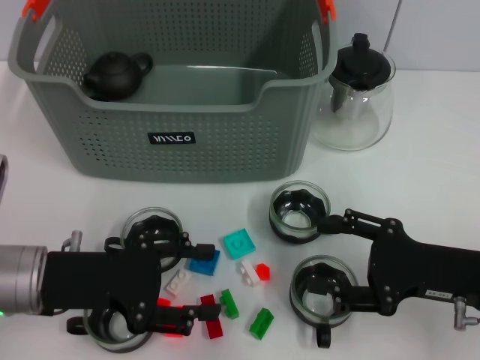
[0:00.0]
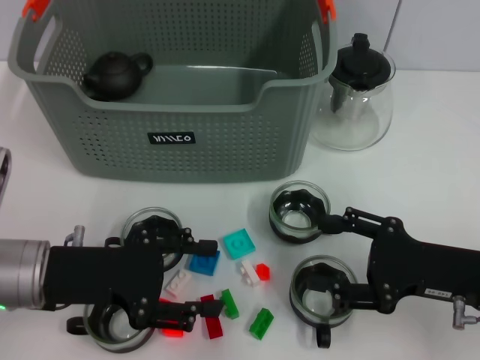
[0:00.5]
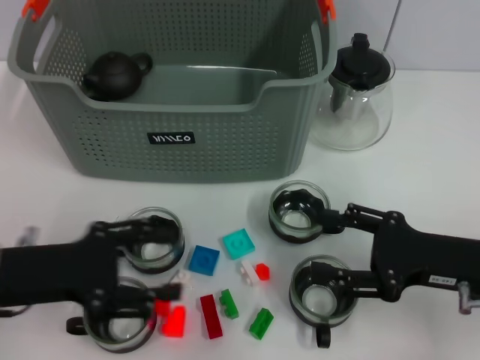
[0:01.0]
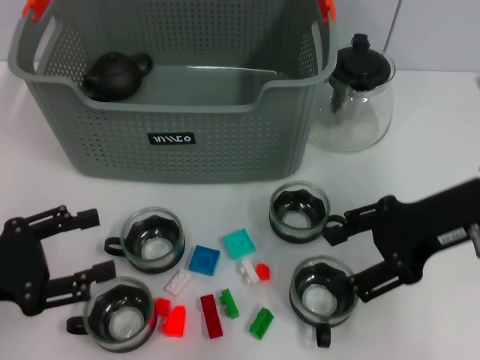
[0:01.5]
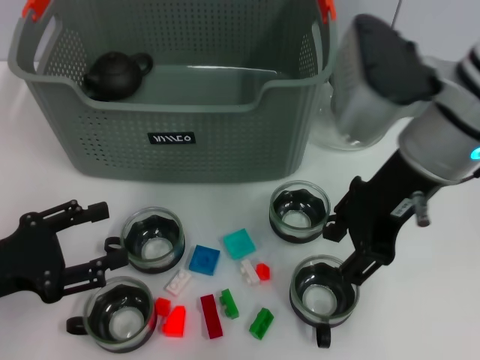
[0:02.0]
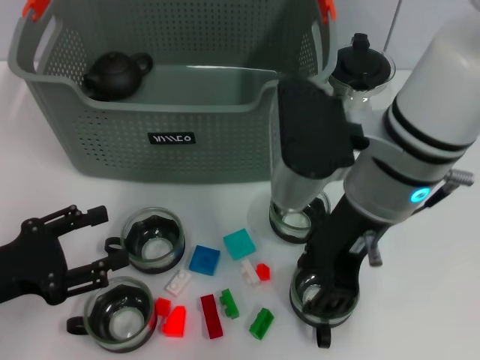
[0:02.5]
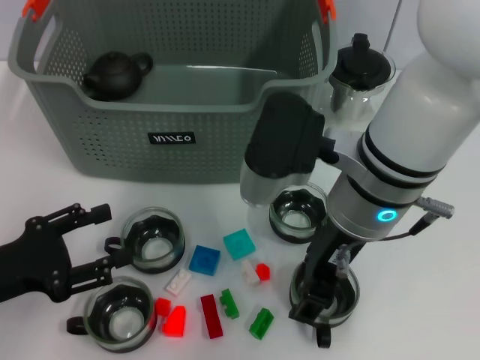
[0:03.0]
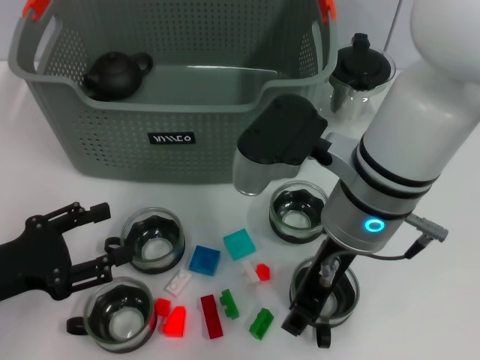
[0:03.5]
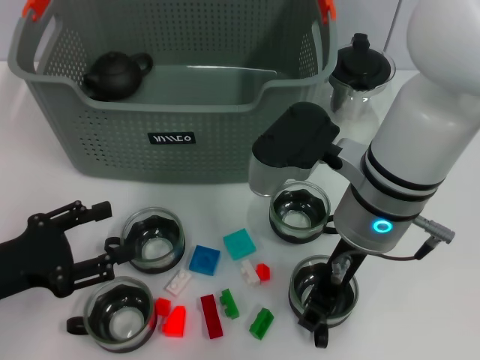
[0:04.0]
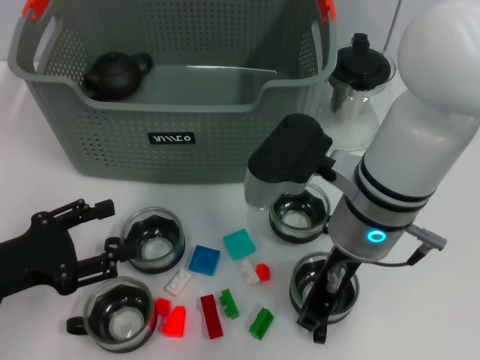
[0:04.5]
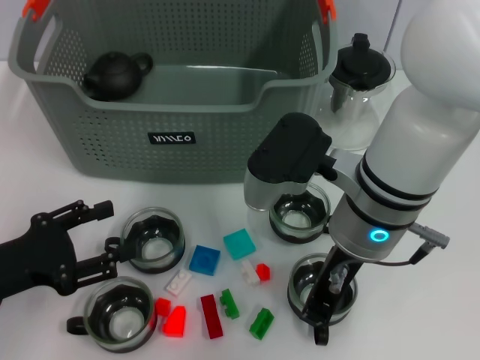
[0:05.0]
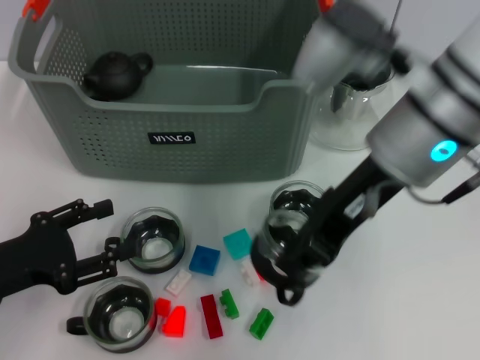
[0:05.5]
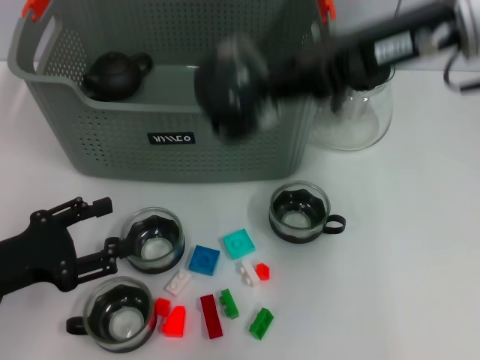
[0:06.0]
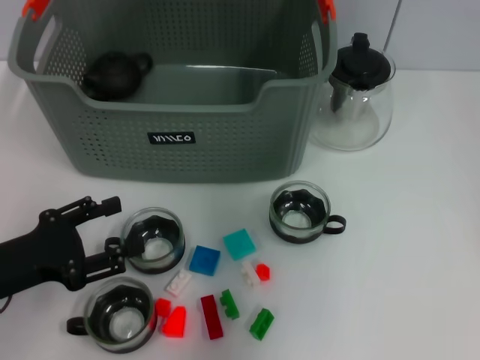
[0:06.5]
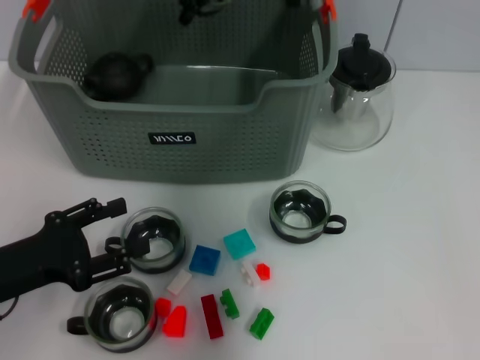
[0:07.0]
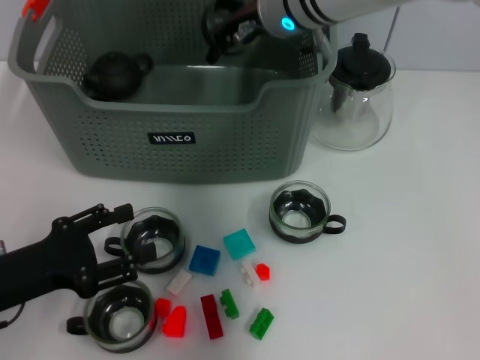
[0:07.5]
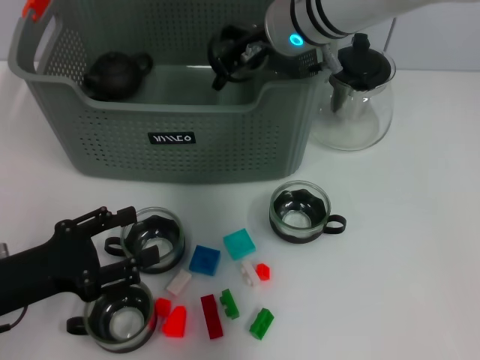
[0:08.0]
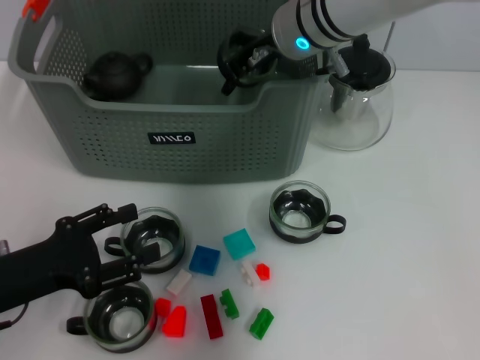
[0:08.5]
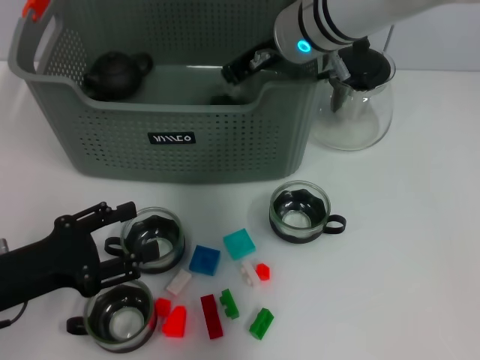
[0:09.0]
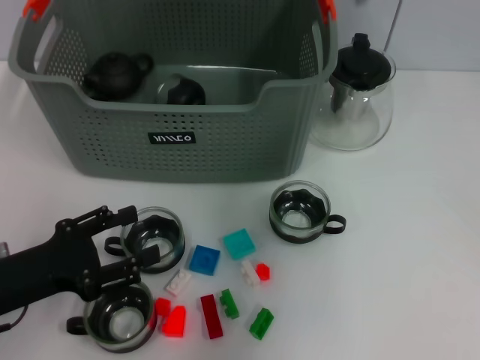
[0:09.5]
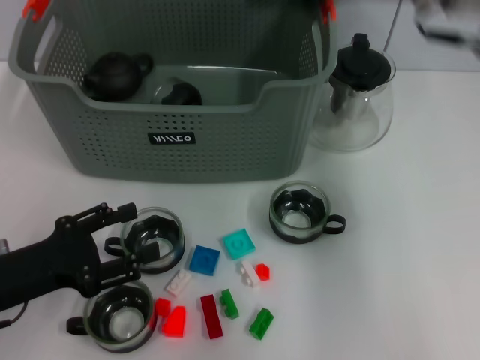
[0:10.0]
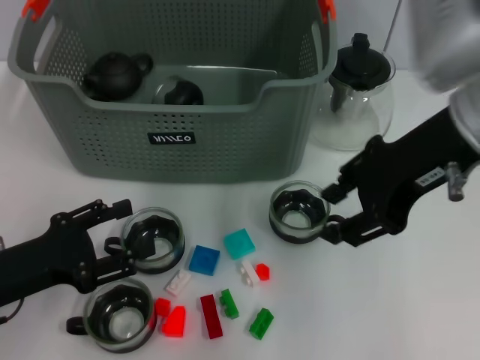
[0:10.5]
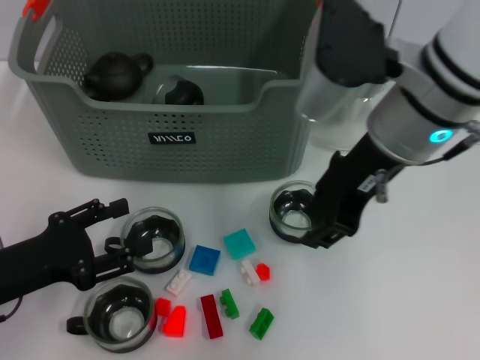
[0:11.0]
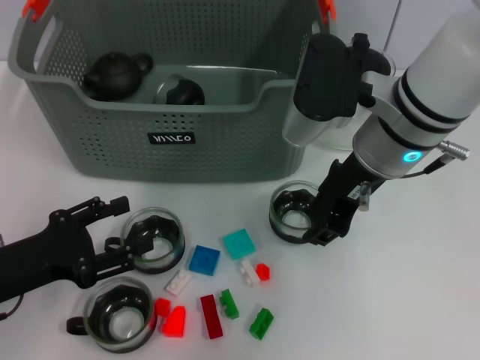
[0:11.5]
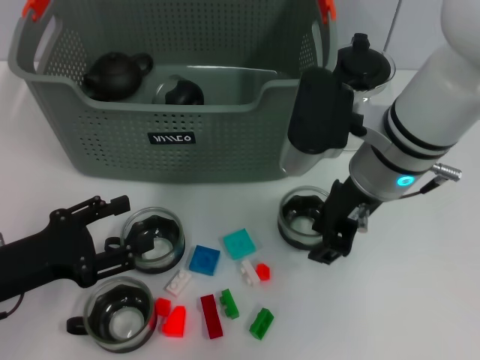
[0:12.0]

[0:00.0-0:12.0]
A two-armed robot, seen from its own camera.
Task of the whole recording: pick up the teacup on the table and place it into the storage bin, pick up the block on the table and place it into the storage bin.
Step, 0:00.0 to 0:05.0: Grasp the cup with right gripper.
Step, 0:05.5 to 0:10.0: Place the cup in the storage box with right gripper.
0:00.0 to 0:02.0: The right gripper heads upward, to the left and forward, covering approximately 20 cm. Meanwhile the left gripper moves to the left, about 5 cm.
0:02.0 to 0:04.0: The right gripper heads downward, covering roughly 5 cm.
0:04.0 to 0:06.0: The right gripper is displaced upward and to the right by roughly 15 cm, and closes.
0:06.0 to 0:08.0: The right gripper is displaced to the left, forward and downward by roughly 20 cm.
0:08.0 to 0:10.0: The right gripper heads to the right, backward and upward, covering roughly 20 cm, and opens its fingers.
0:10.0 to 0:12.0: The right gripper travels downward and to the left by approximately 15 cm.

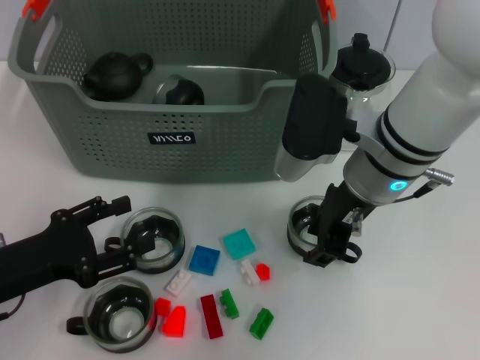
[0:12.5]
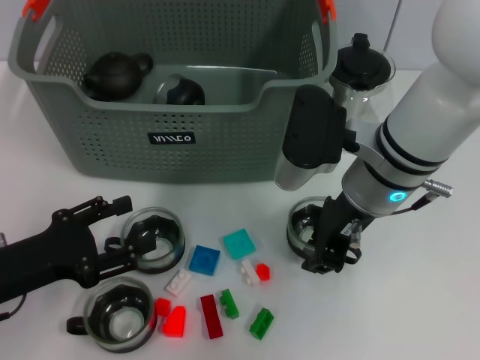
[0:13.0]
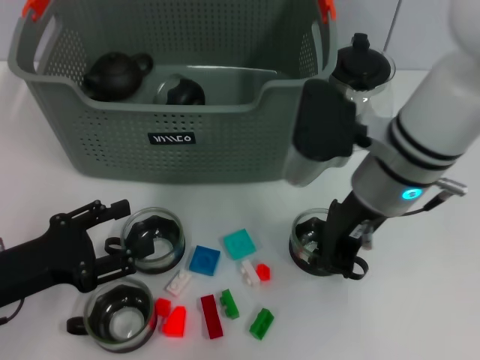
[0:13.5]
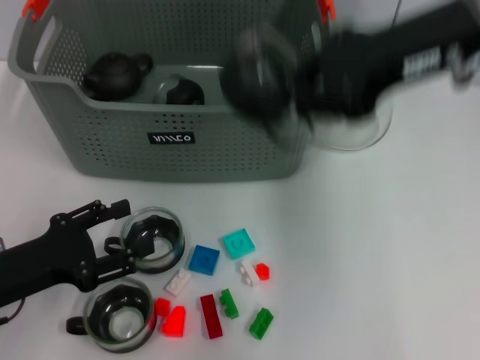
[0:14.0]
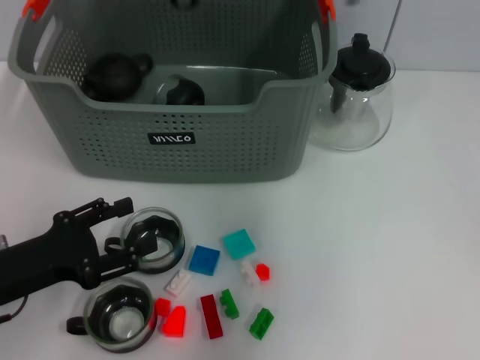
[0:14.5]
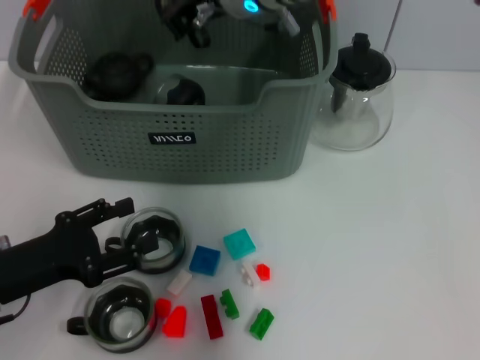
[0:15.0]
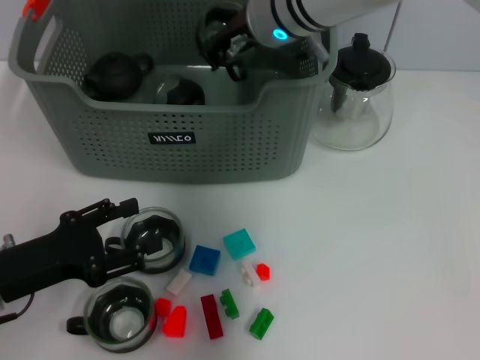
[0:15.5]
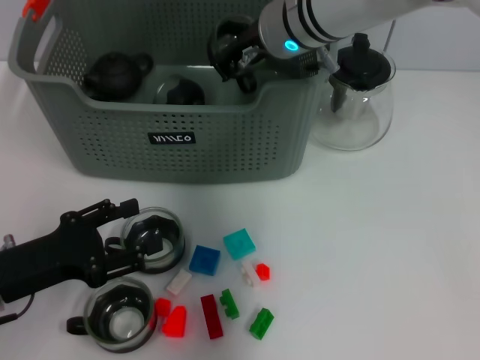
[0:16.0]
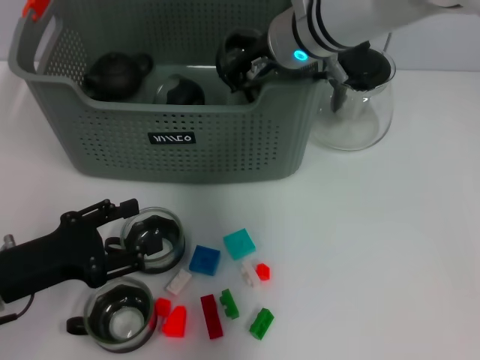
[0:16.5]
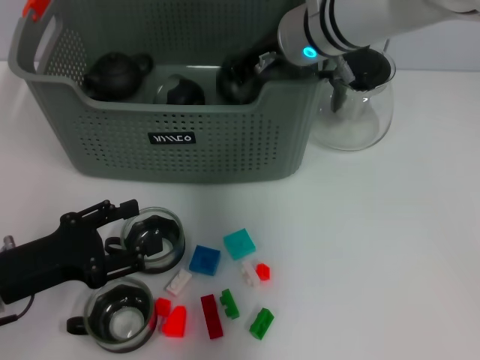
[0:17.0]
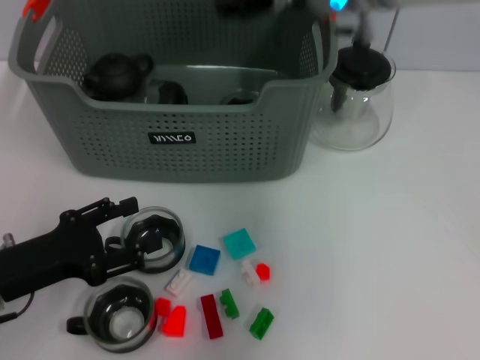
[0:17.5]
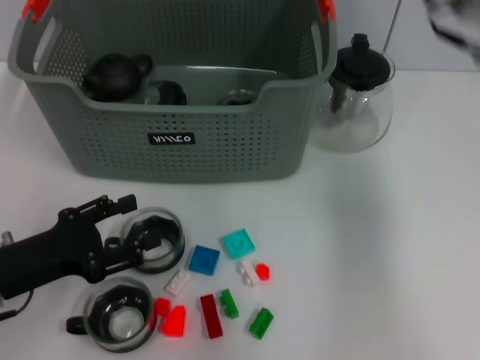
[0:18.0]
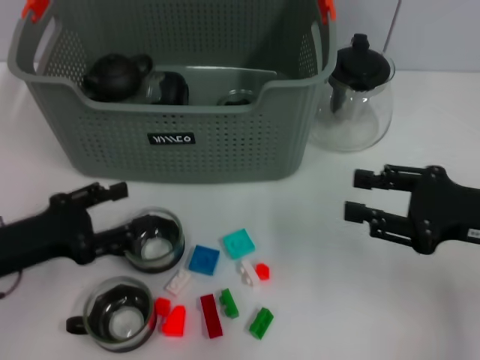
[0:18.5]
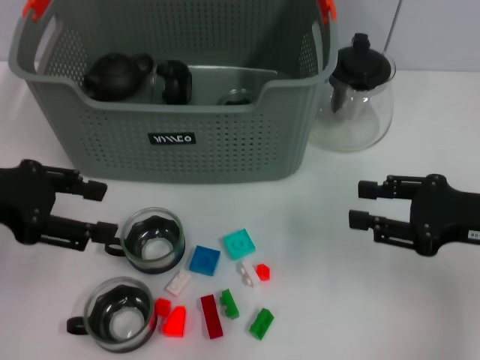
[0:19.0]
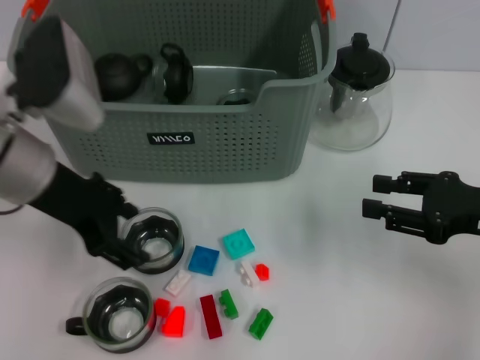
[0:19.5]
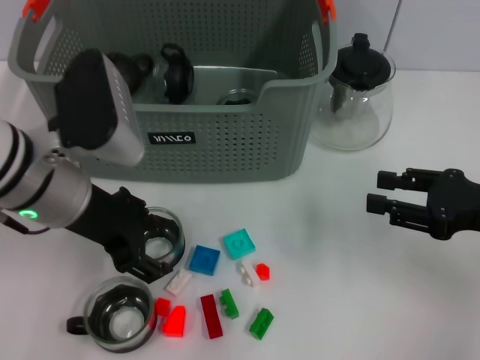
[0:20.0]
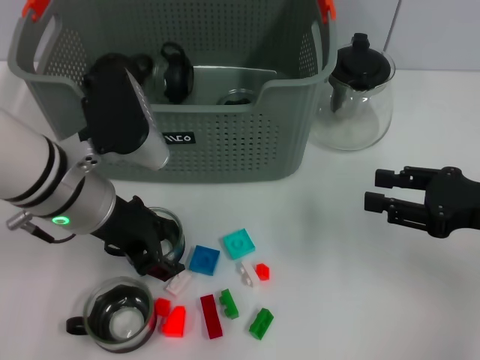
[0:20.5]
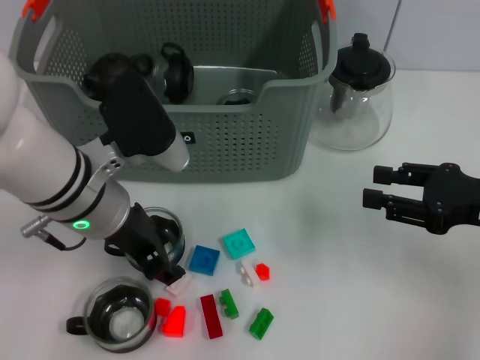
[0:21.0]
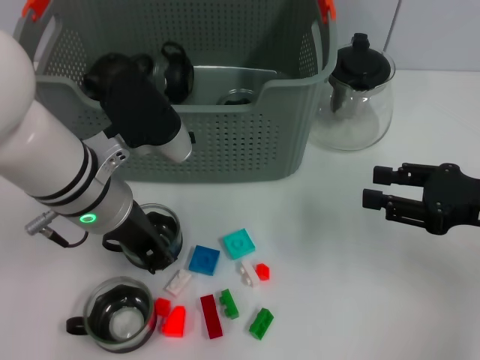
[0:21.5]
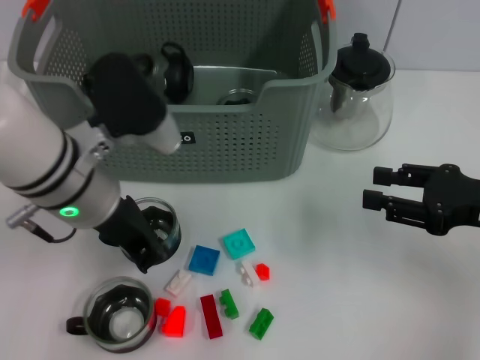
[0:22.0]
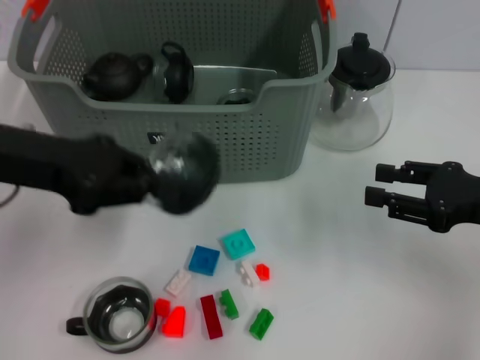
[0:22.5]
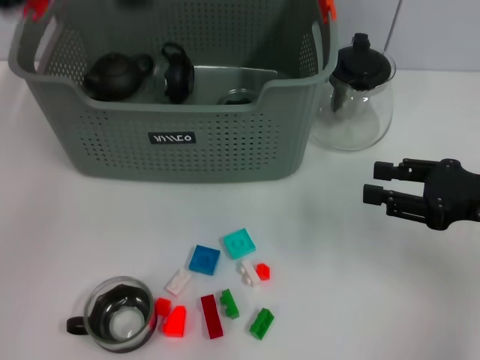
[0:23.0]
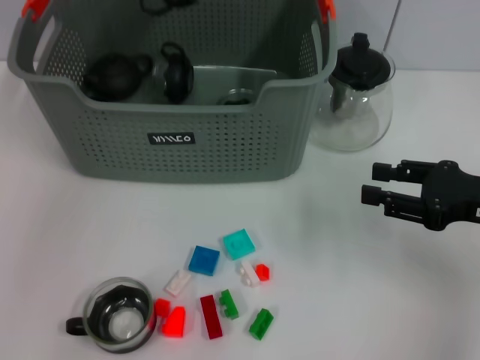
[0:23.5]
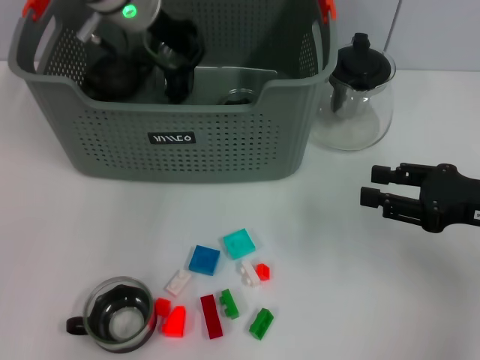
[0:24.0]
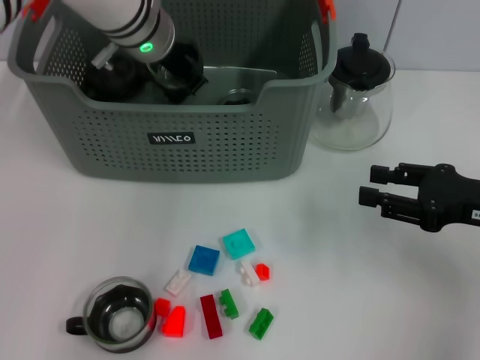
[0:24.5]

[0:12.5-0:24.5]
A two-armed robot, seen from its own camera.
Task of the whole recording: pick up the teacup on the table and place it into the storage bin, pick up the block on the table and place it into the storage bin.
Step, 0:14.0 to 0:19.0: Place the cup in the storage box with right gripper.
Step, 0:19.5 to 0:21.5: Grasp the cup with left gripper.
0:12.5 to 0:14.5: The right gripper goes roughly 15 cm upward and forward, and closes up.
0:14.5 to 0:16.5: The right gripper shifts some 10 cm downward.
0:16.5 to 0:18.5: The right gripper shifts about 30 cm to the right and backward, and opens up.
0:18.5 to 0:20.5: The left gripper shifts roughly 15 cm to the right, upward and forward.
0:20.5 to 0:22.5: The left gripper is displaced to the left and upward by some 10 cm, and closes its fingers.
0:22.5 to 0:24.5: The left gripper is displaced forward and to the right by roughly 20 cm.

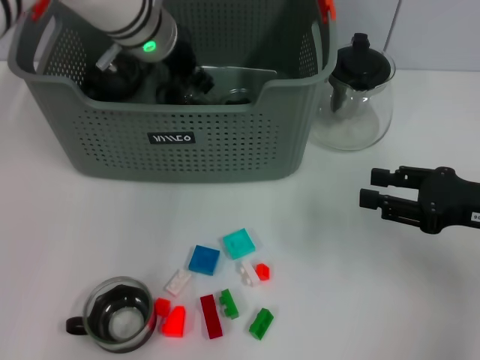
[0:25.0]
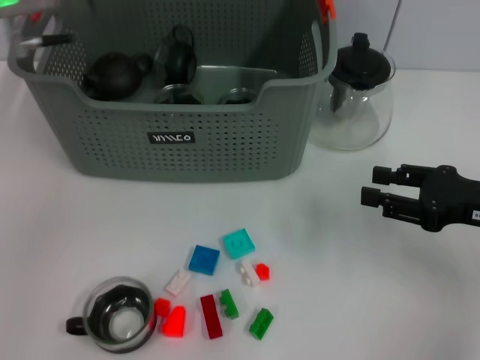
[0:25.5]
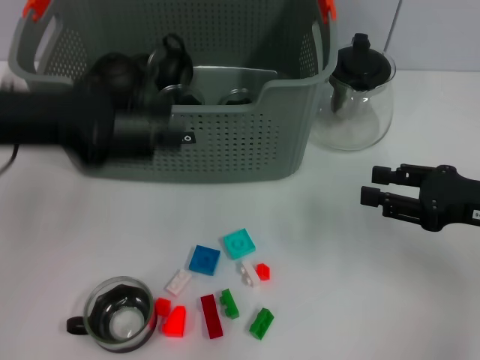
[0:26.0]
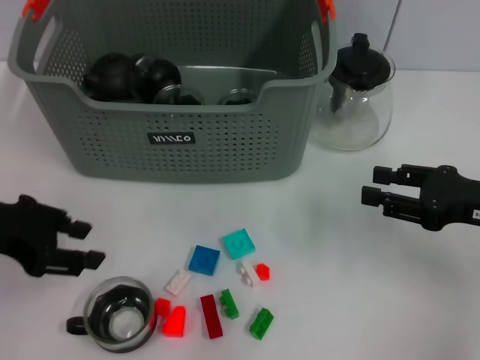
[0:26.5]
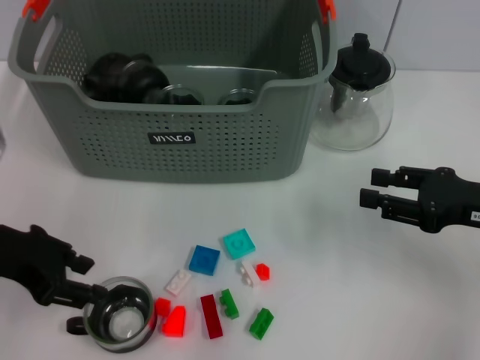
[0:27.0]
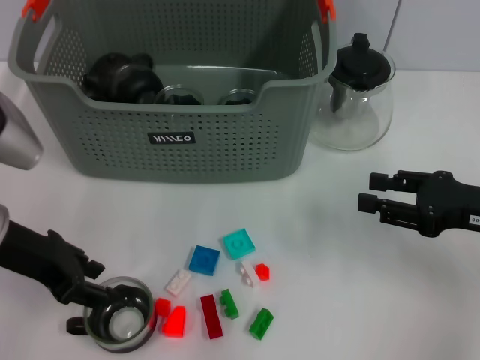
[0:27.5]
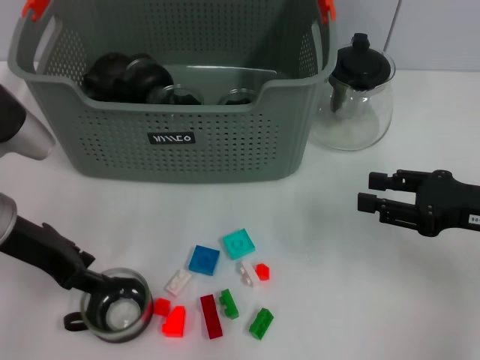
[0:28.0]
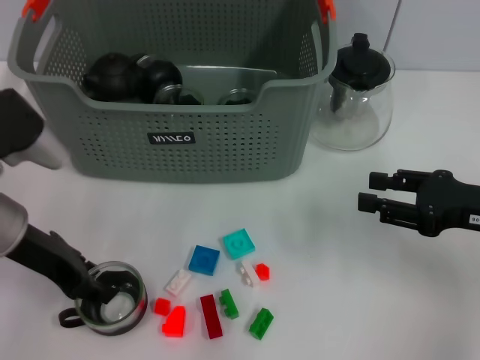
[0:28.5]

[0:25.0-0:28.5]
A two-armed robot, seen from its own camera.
Task of the whole recording: pick up the teacup on the table and place it into the storage bin, pick up the block on the table and place it into the storage bin.
0:25.0 to 0:27.0: The left gripper is displaced backward and to the left by roughly 25 cm, and opens its fingers.
0:27.0 to 0:28.5: The left gripper shifts by approximately 5 cm.
